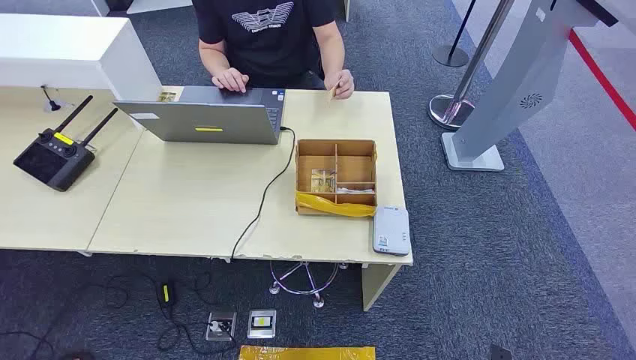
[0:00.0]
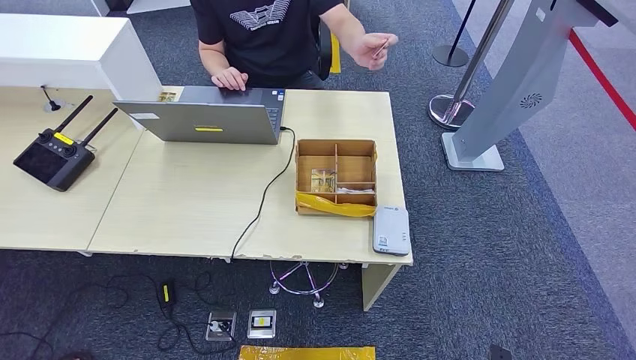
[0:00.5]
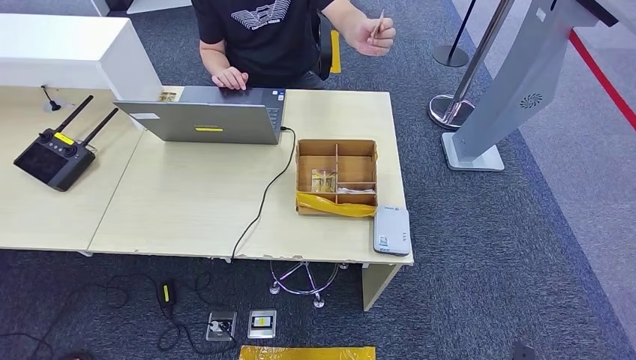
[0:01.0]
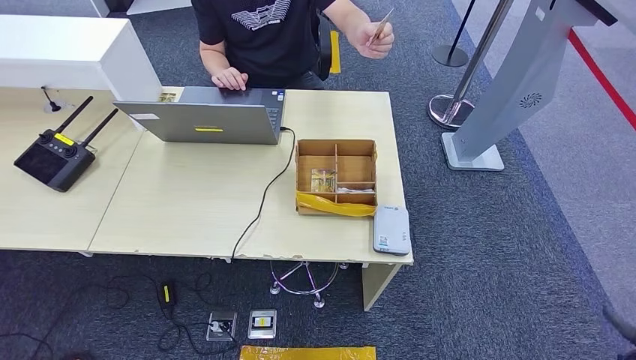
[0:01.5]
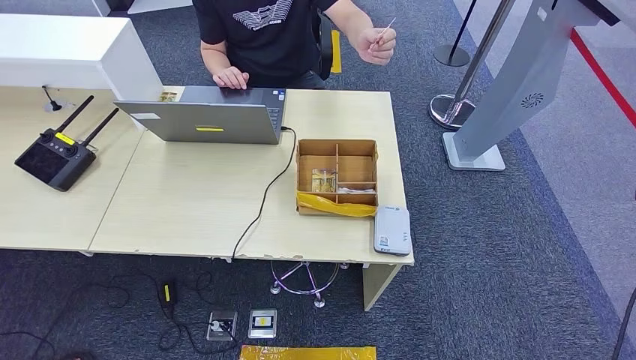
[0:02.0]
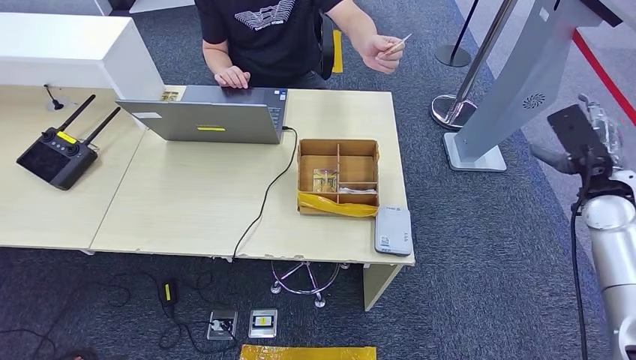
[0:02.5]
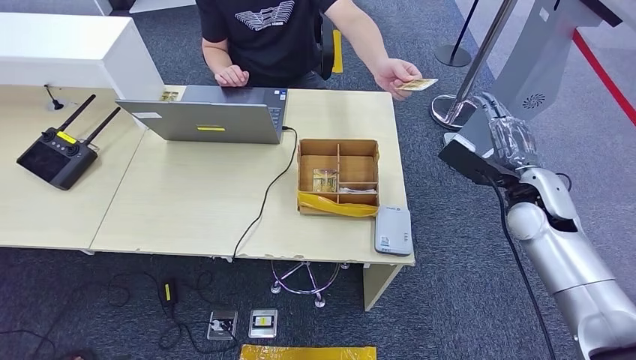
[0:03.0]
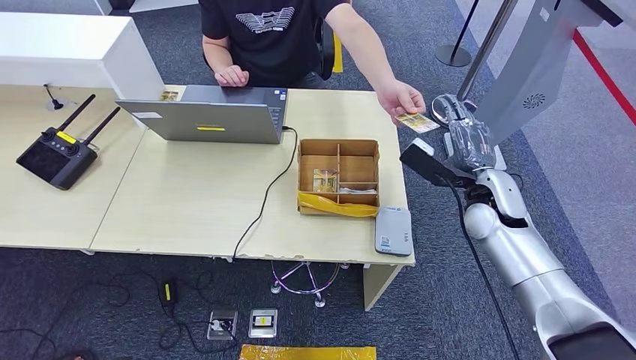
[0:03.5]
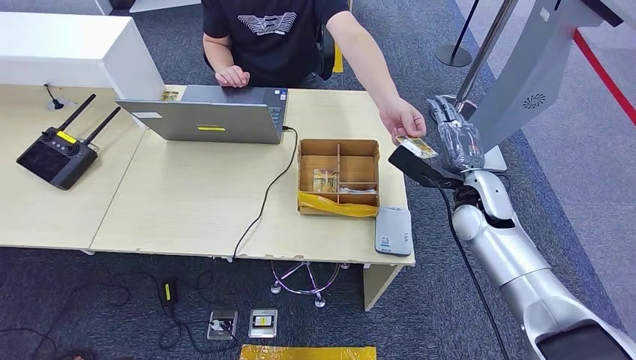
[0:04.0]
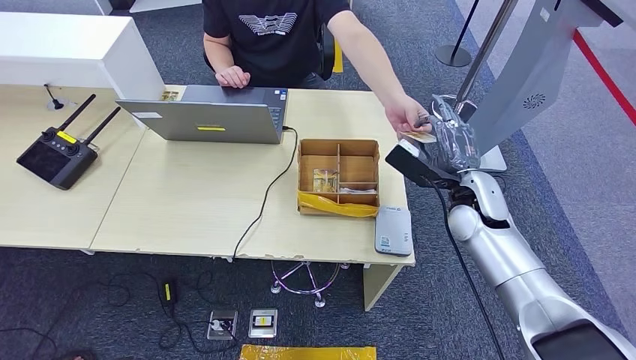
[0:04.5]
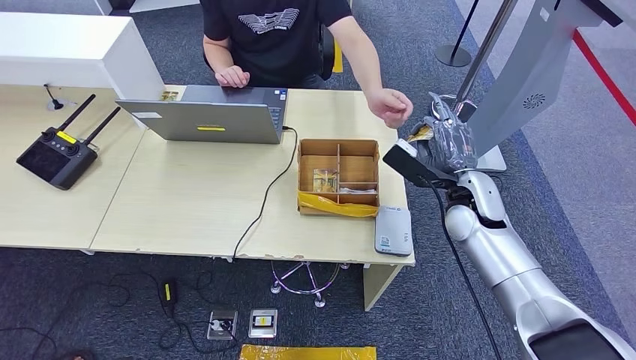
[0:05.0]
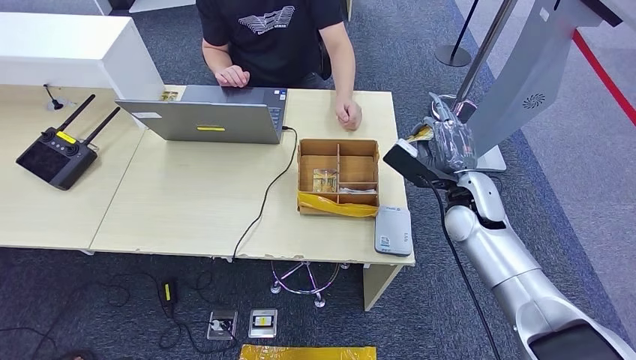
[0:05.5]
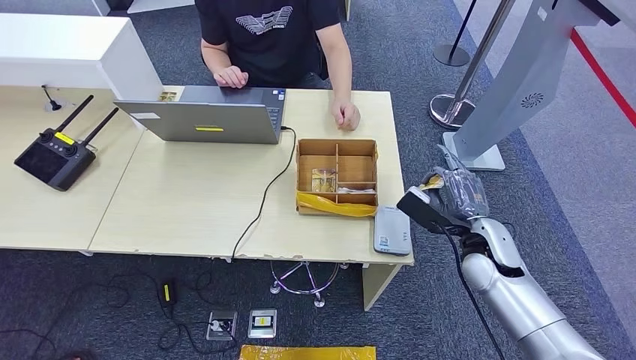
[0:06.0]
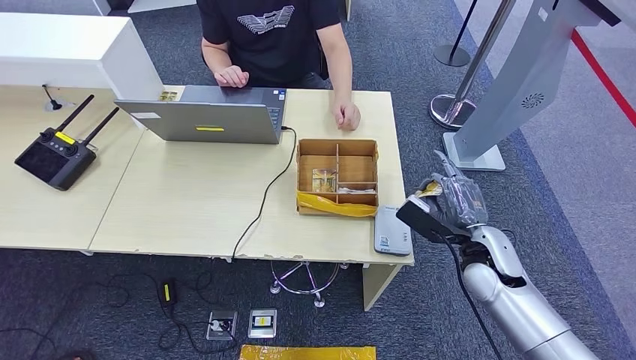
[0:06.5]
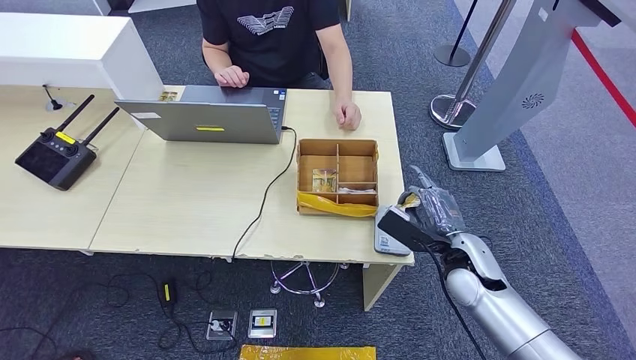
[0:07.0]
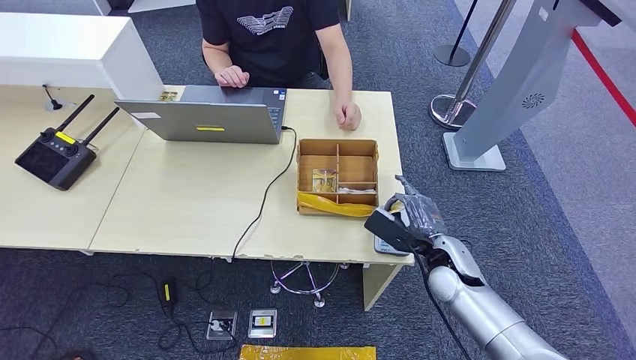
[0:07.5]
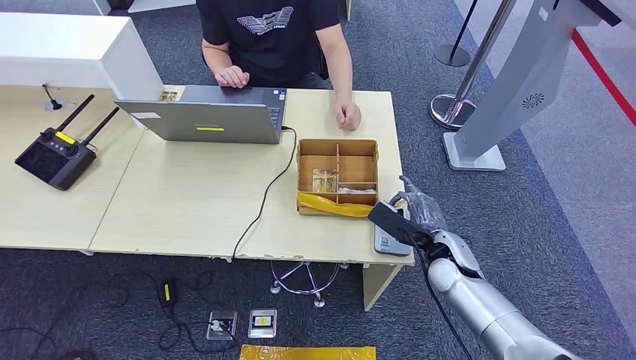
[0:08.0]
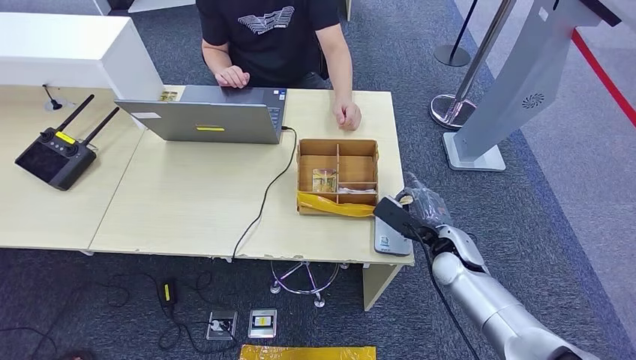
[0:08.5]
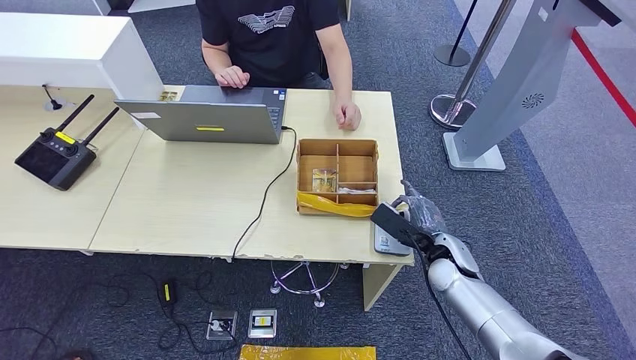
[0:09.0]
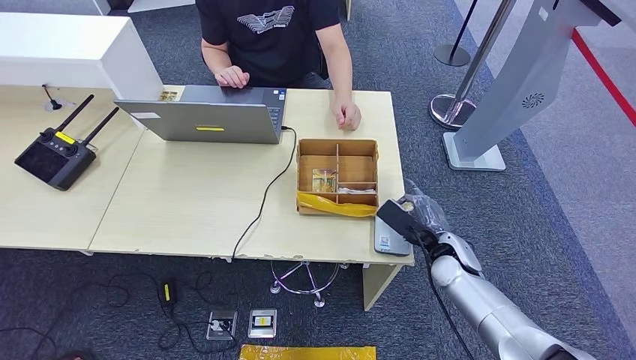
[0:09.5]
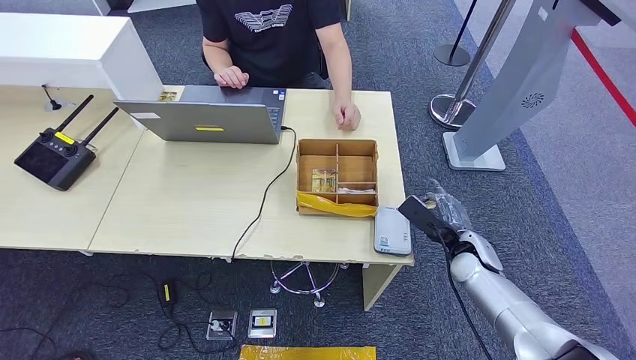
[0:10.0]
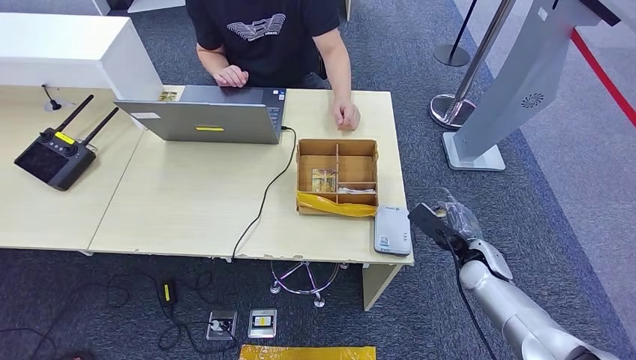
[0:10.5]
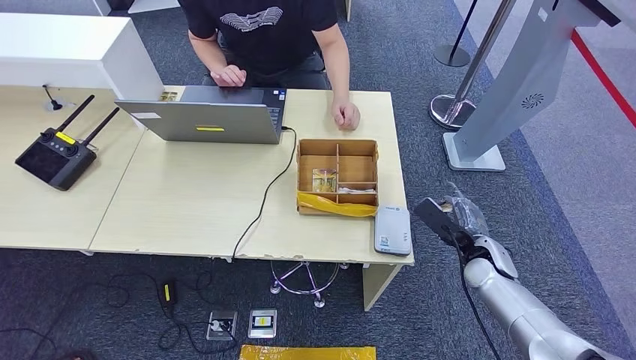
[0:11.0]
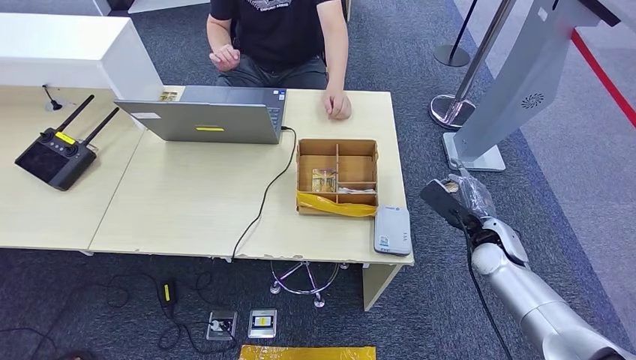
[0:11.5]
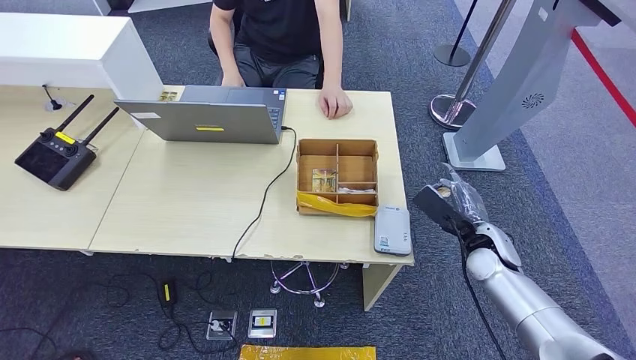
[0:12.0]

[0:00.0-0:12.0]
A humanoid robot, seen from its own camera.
Step, 0.0 to 5.5 s: Take the ID card from the person's hand.
Step, 6.5 to 11.5 s: Place the ID card on the card reader.
2.0 to 4.0 s: The right hand moves to the left and forward, approximately 30 cm.
4.0 to 6.0 s: The right hand moves backward and downward, approximately 10 cm.
6.0 to 8.0 s: The right hand heads downward, covering roughly 5 cm.
8.0 to 10.0 s: The right hand goes some 5 cm to the right.
10.0 to 12.0 s: The hands stay close to where they were, moving slightly.

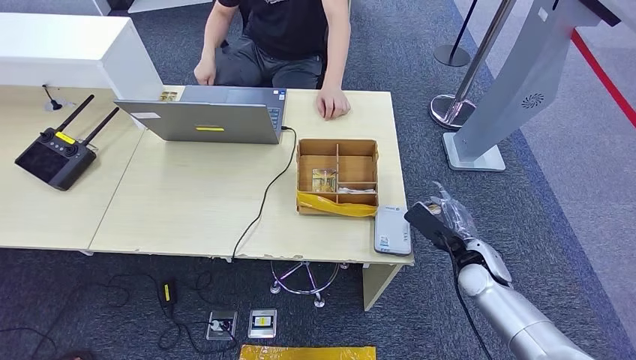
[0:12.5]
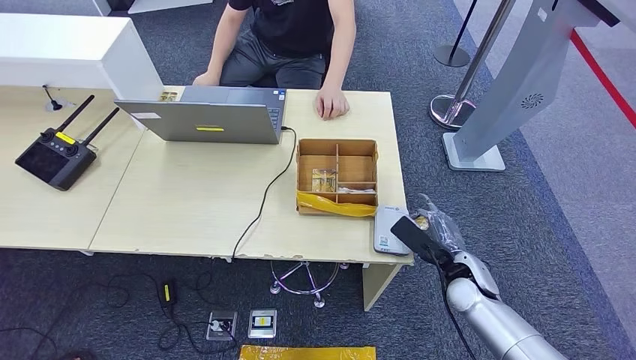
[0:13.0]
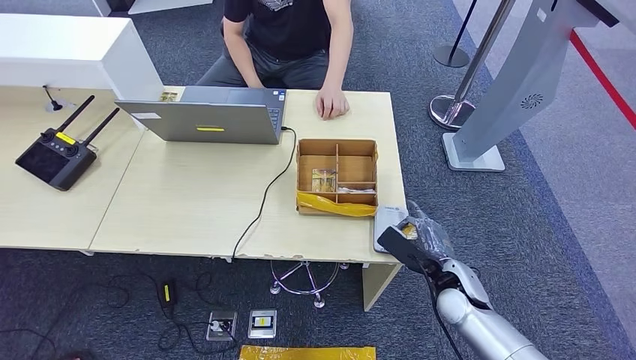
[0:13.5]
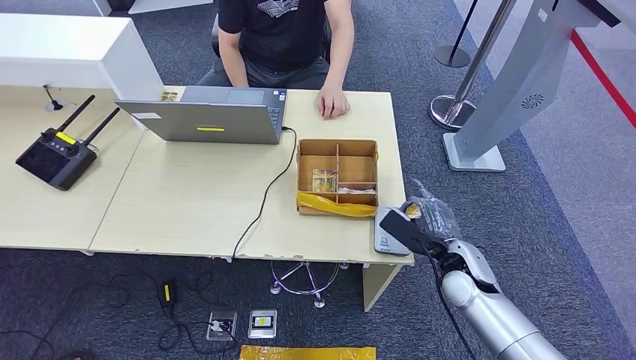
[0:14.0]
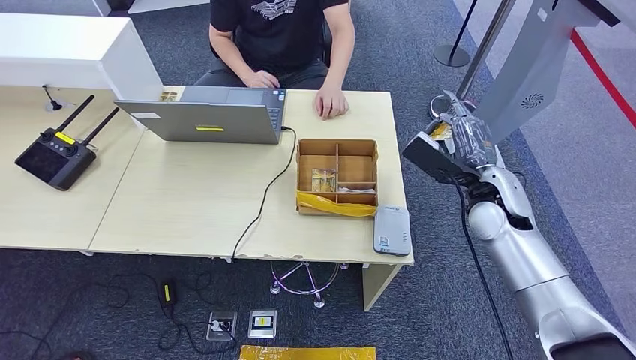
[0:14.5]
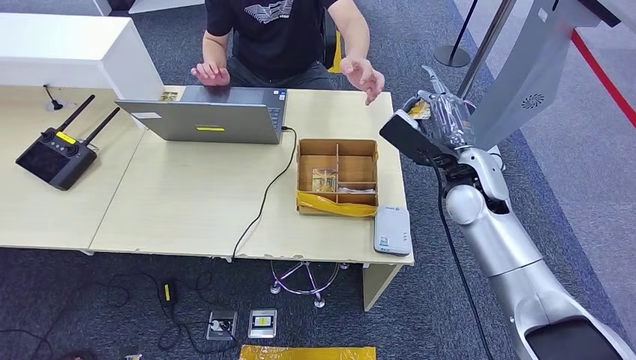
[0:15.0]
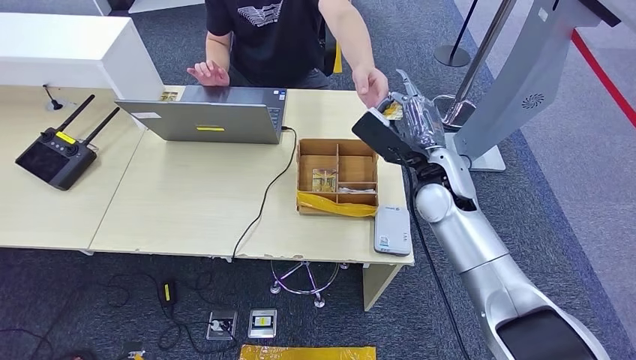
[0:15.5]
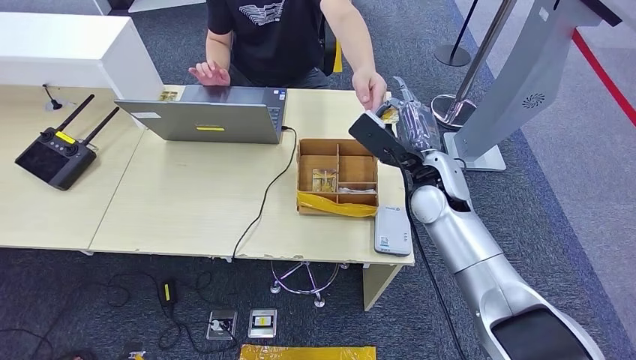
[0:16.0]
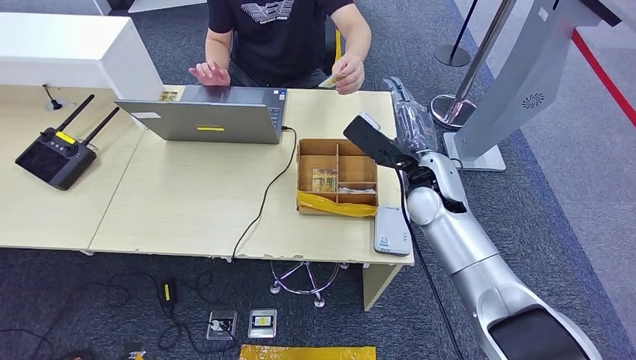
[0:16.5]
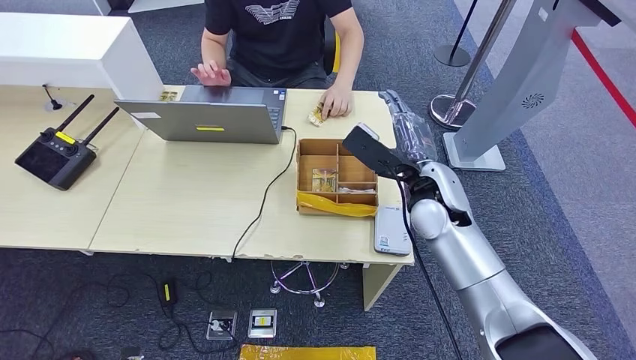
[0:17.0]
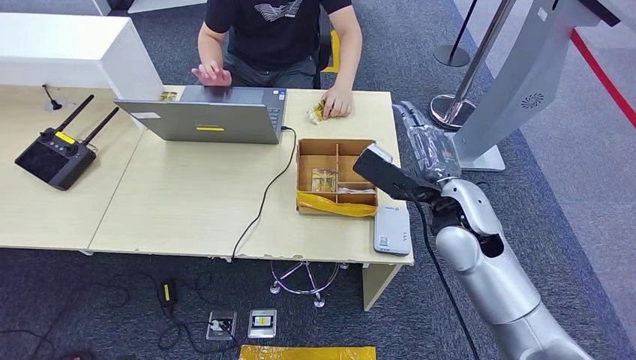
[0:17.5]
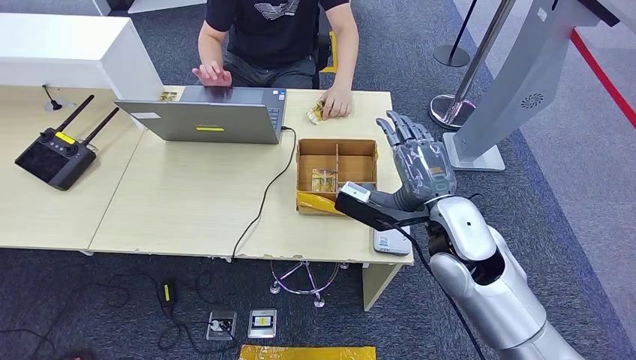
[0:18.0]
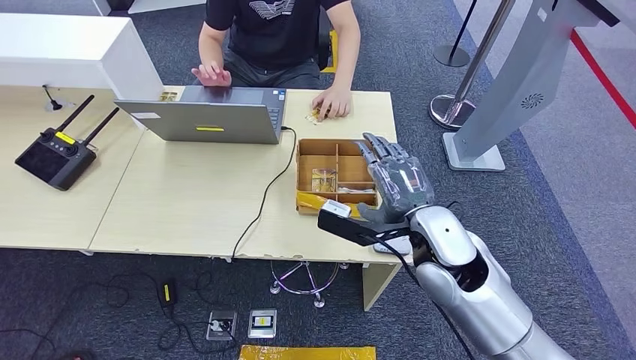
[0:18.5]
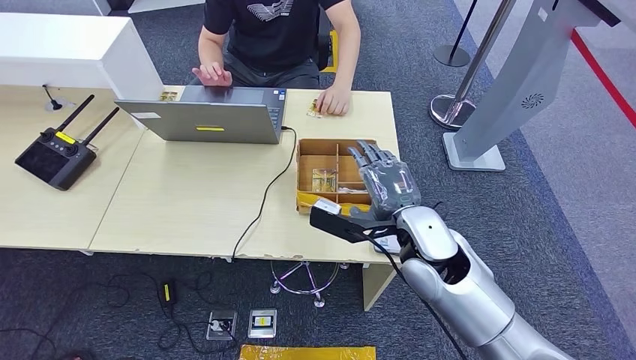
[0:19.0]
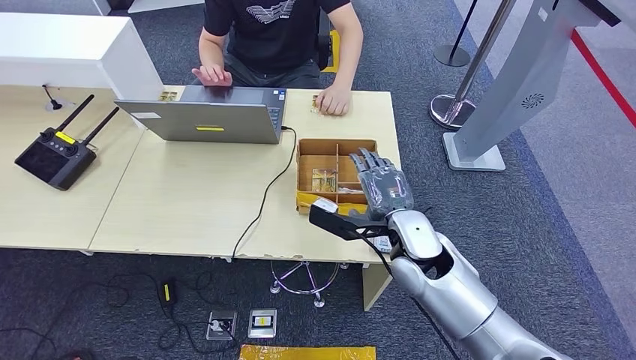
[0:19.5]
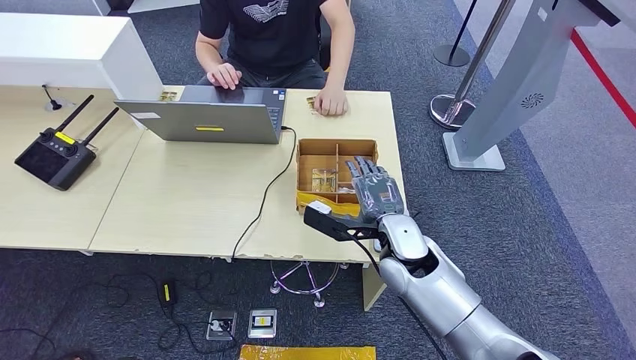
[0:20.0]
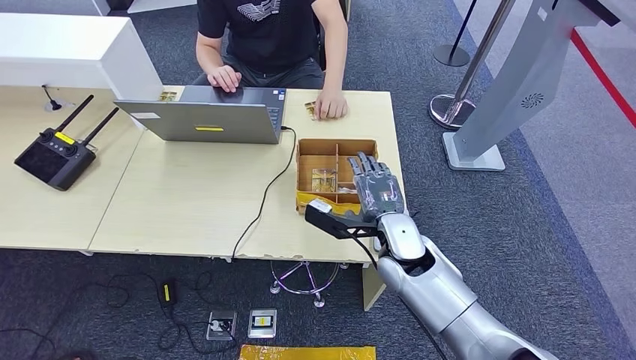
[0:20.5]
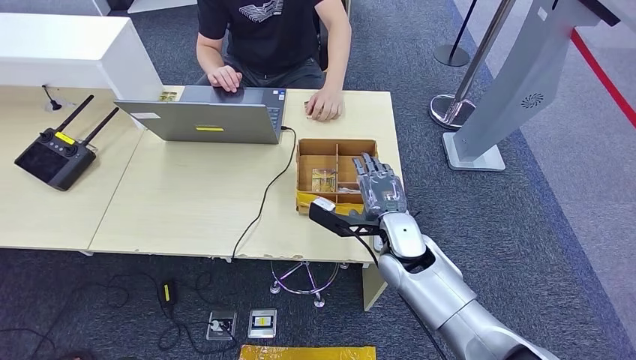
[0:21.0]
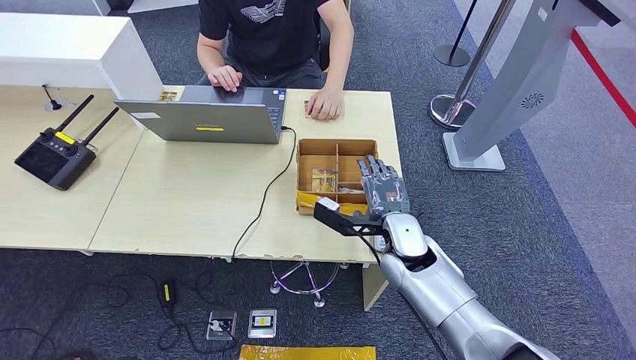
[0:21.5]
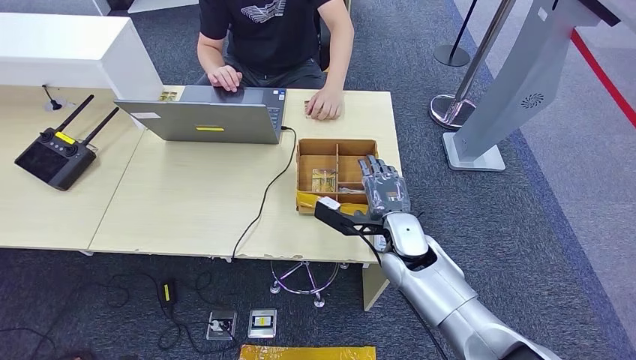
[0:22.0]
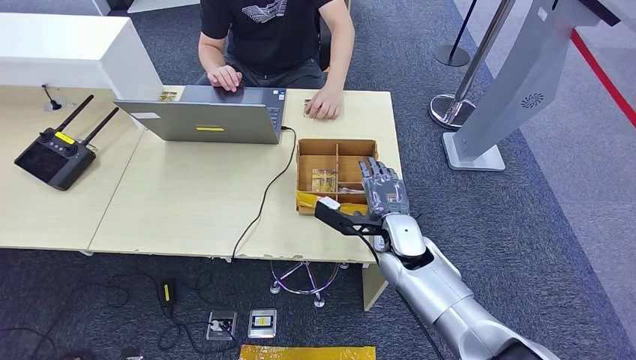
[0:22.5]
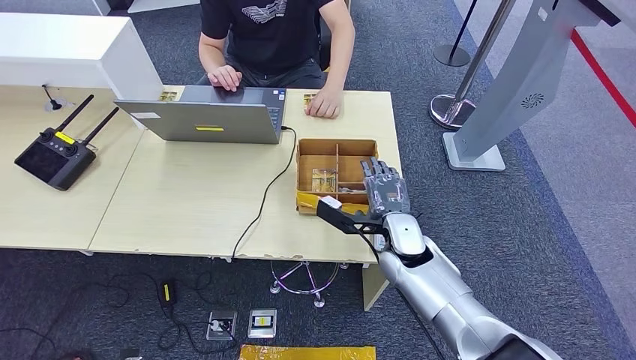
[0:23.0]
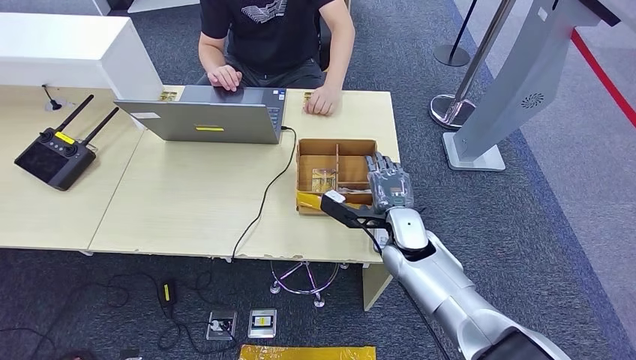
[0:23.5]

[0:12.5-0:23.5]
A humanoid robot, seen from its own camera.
Step, 12.5 to 17.0 s: Hand the ID card to the person.
12.5 to 14.5 s: The right hand moves upward and forward, approximately 15 cm.
14.5 to 16.0 s: The right hand shifts approximately 10 cm to the left.
16.0 to 18.0 s: The right hand goes some 10 cm backward.
18.0 to 20.0 s: The right hand moves downward and to the left, some 10 cm.
20.0 to 23.5 s: The hands move only a little.
